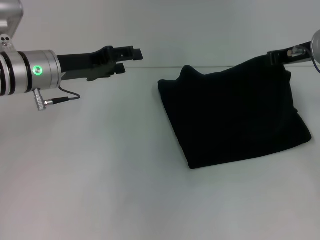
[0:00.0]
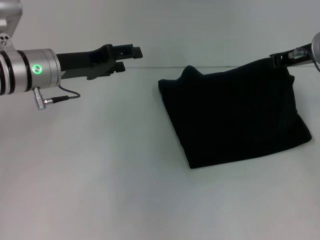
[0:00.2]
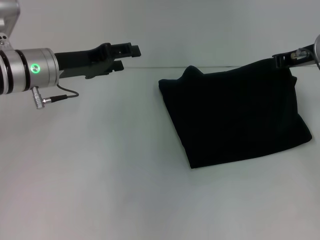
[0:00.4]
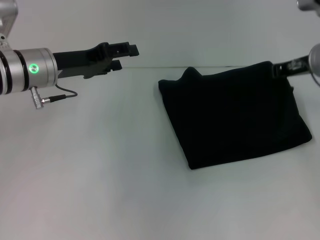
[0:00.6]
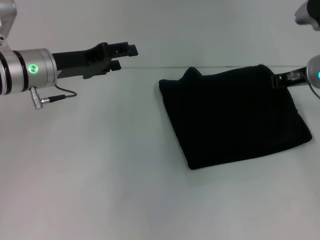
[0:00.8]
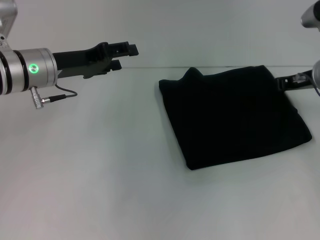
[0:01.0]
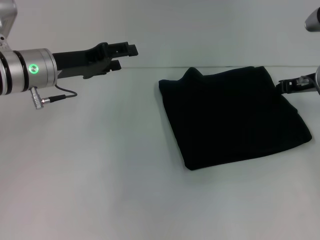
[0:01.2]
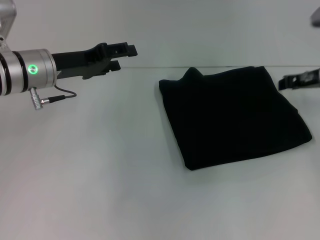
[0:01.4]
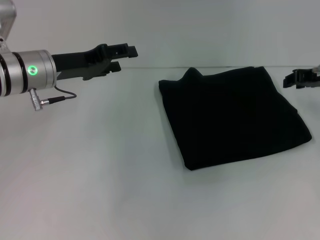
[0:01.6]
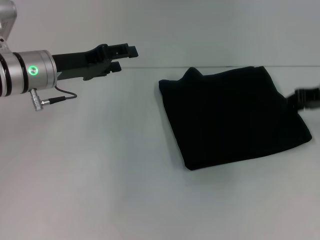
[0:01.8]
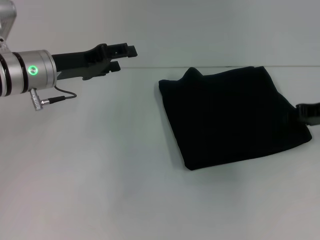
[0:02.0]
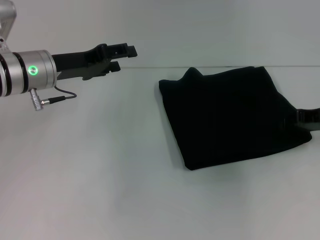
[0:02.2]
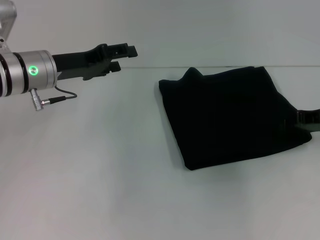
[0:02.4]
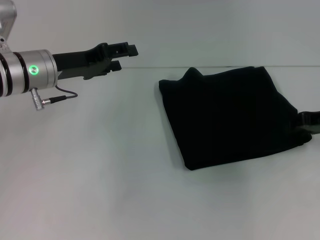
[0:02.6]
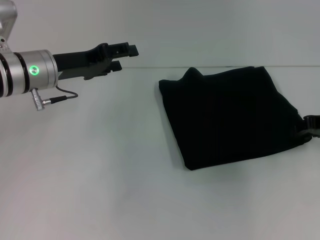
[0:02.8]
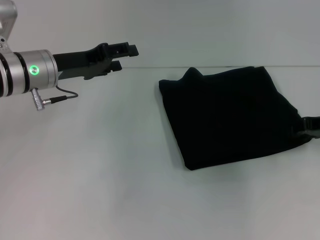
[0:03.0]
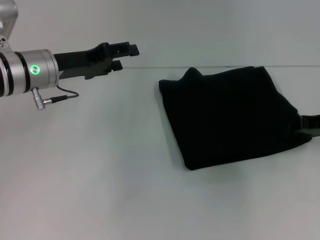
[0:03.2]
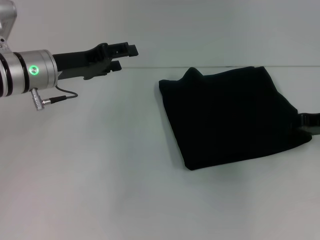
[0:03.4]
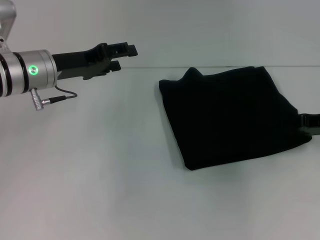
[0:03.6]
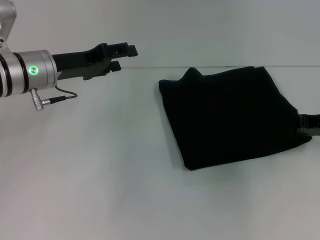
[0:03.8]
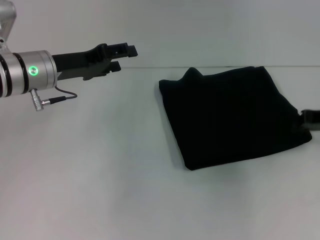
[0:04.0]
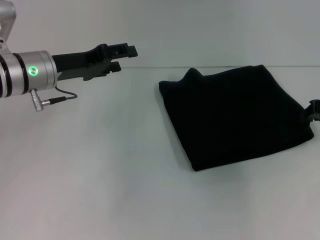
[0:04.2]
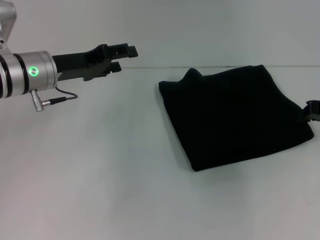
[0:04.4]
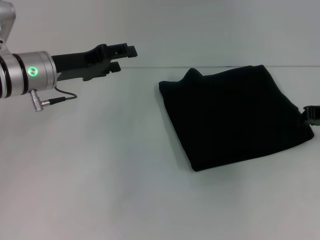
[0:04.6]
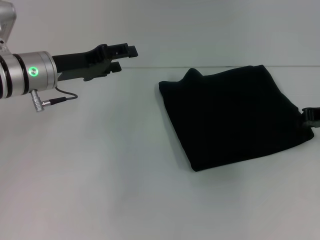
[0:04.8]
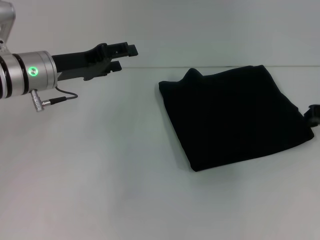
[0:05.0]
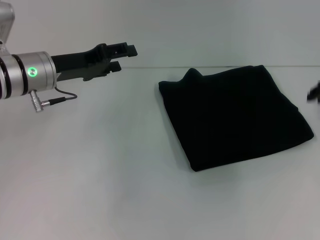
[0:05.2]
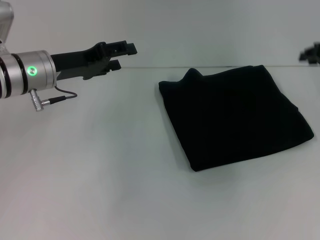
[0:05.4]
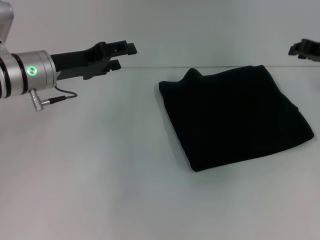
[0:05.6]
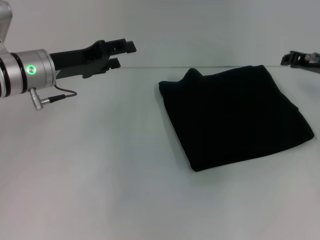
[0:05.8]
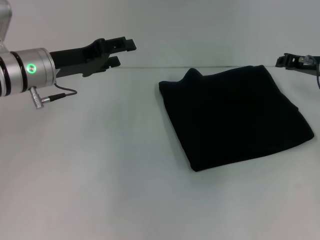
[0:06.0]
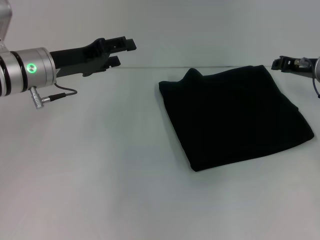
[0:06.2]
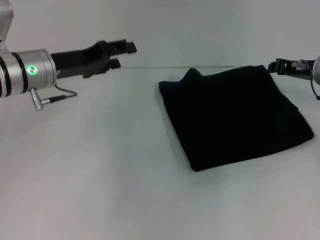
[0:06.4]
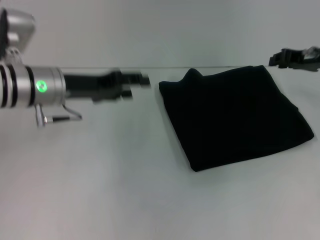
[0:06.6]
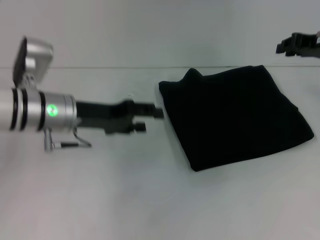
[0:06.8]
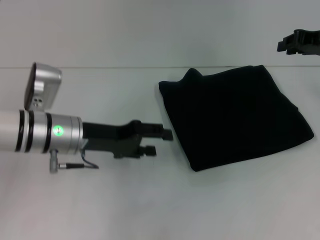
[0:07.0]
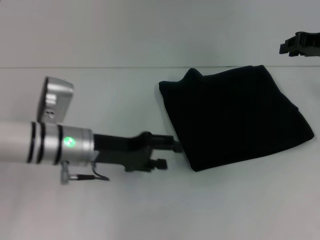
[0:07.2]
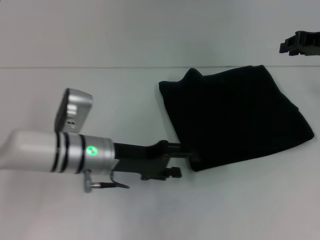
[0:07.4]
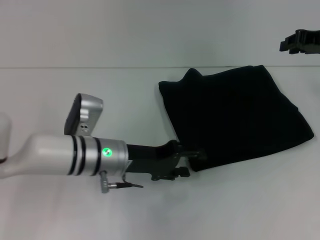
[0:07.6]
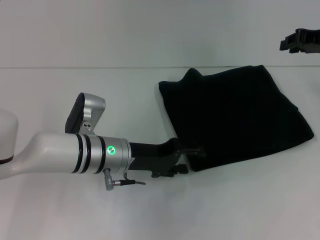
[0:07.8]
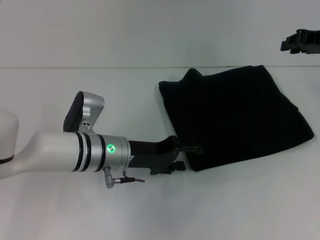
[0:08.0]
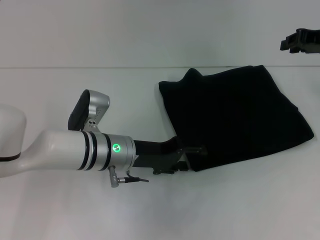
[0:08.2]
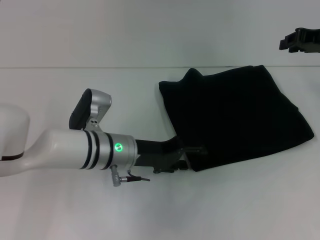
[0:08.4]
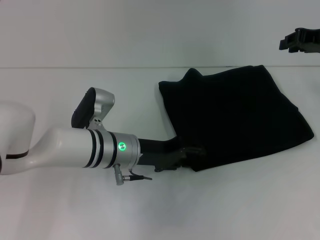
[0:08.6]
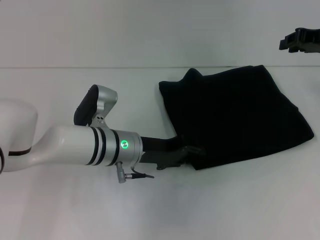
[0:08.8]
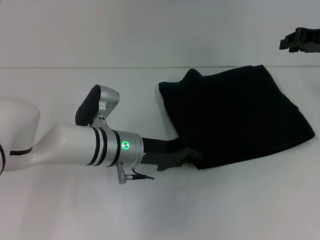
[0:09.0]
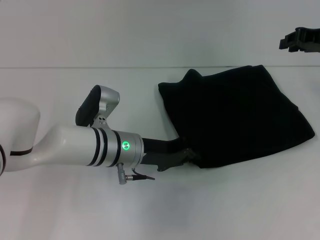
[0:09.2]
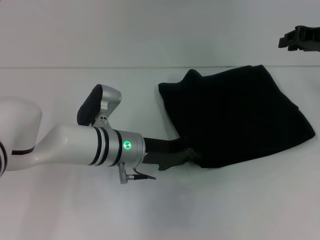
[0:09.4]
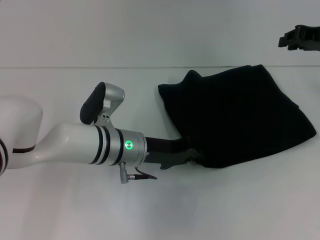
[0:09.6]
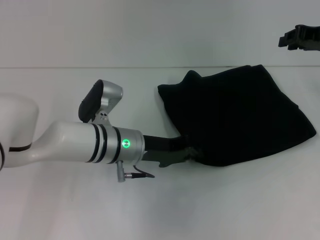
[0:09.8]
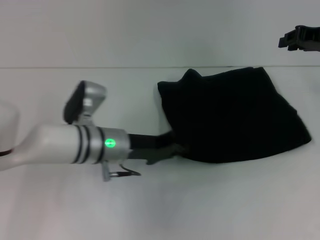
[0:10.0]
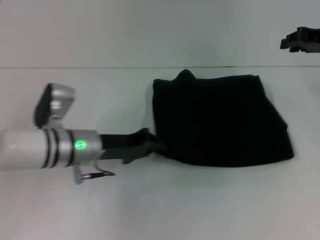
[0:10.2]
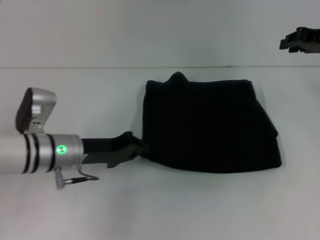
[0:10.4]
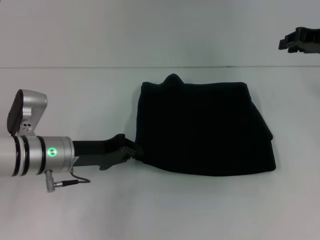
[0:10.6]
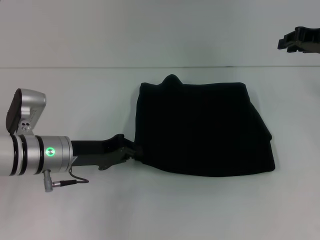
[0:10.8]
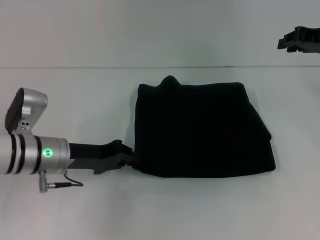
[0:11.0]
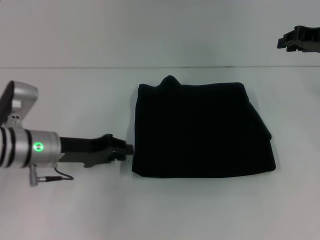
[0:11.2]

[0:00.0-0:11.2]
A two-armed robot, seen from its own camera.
0.0 to 1.6 s: The right gripper shifts by roughly 5 cm.
1.6 to 3.2 s: The right gripper ends up about 5 cm from where it was.
3.2 to 4.8 s: The right gripper closes.
4.8 to 6.4 s: The right gripper heads forward, covering roughly 5 cm.
6.4 to 8.0 s: The left gripper goes approximately 15 cm to the right, downward and backward. The right gripper shifts about 5 cm upward.
8.0 to 9.6 s: The left gripper closes its fingers.
9.6 to 11.2 s: The left gripper travels to the left by roughly 15 cm.

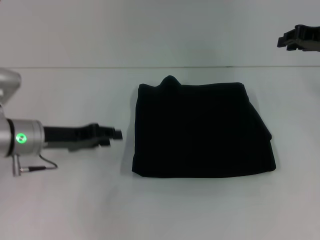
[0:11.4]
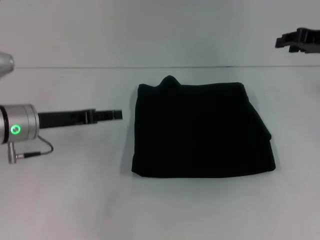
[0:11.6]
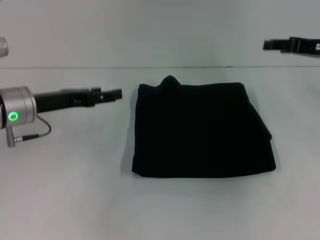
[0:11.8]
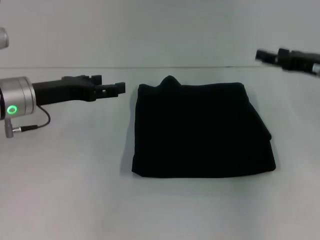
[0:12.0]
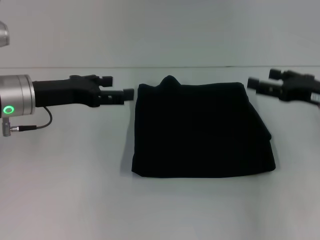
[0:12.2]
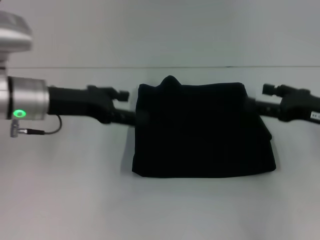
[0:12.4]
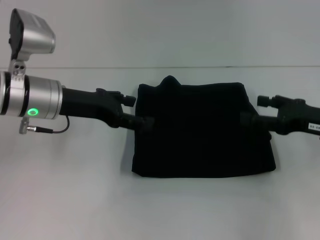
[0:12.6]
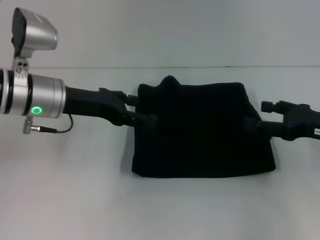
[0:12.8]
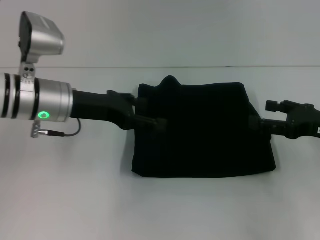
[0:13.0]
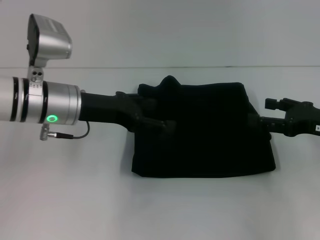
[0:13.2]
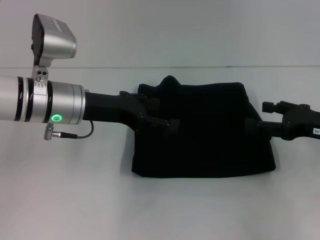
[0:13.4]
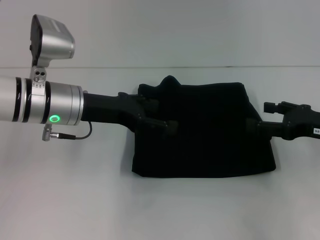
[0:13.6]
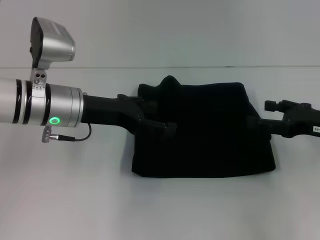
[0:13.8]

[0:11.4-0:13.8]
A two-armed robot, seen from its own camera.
11.4 to 12.6 s: The right gripper travels backward and downward by roughly 15 cm, and opens its fingers; the left gripper travels upward by some 5 cm, and opens.
12.6 to 13.8 s: There are only small adjustments of the grippers.

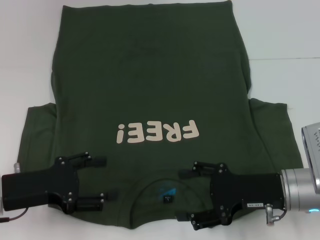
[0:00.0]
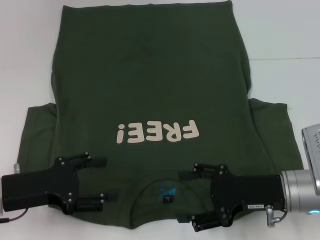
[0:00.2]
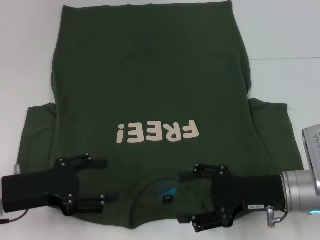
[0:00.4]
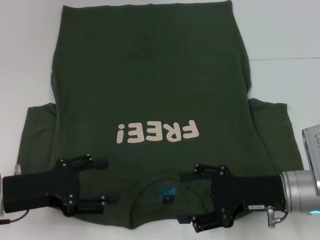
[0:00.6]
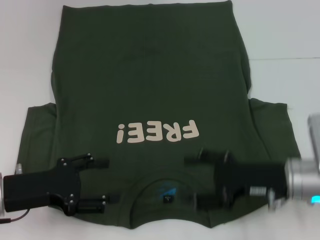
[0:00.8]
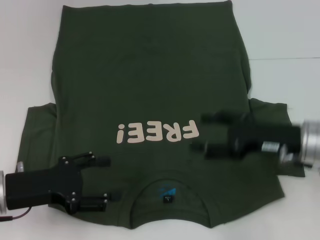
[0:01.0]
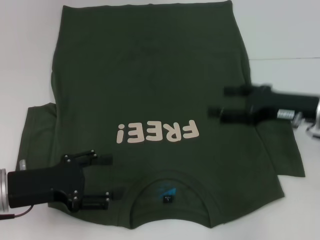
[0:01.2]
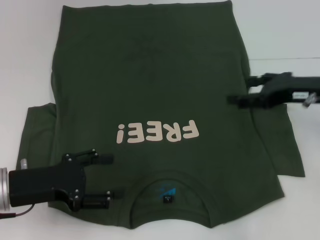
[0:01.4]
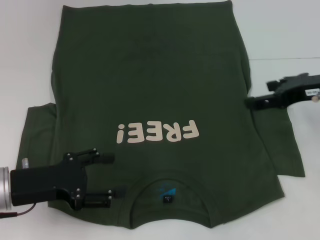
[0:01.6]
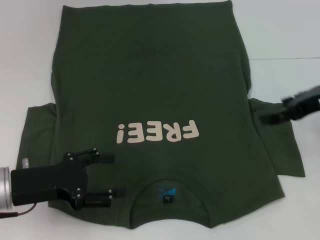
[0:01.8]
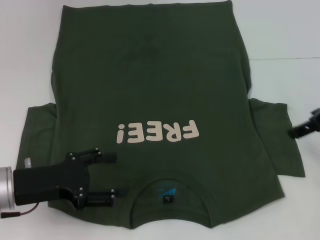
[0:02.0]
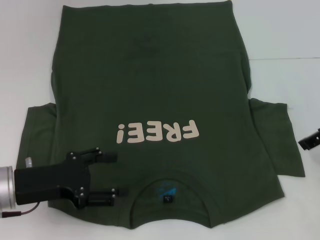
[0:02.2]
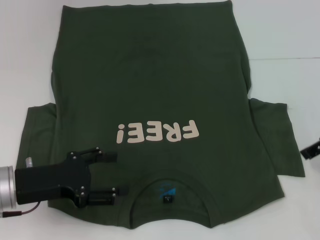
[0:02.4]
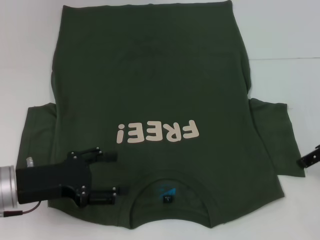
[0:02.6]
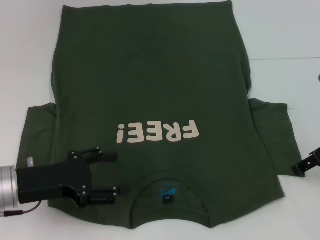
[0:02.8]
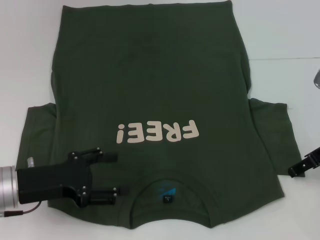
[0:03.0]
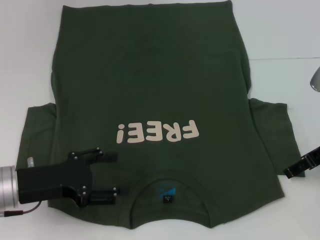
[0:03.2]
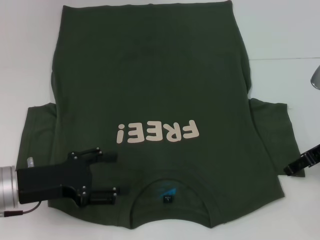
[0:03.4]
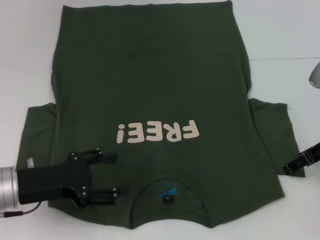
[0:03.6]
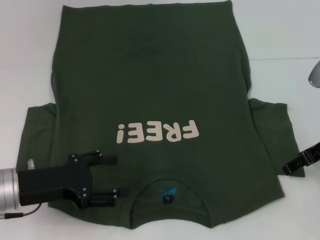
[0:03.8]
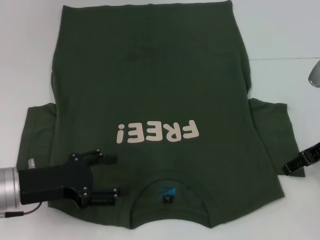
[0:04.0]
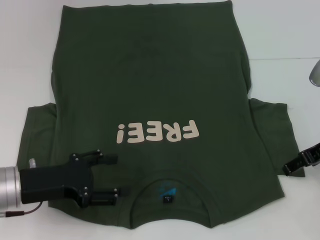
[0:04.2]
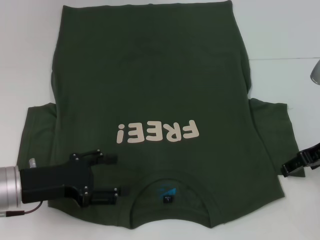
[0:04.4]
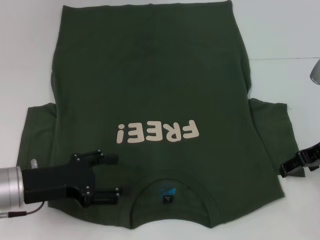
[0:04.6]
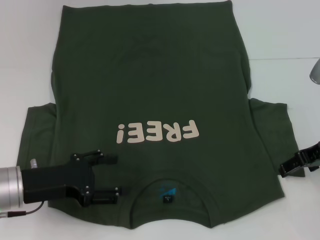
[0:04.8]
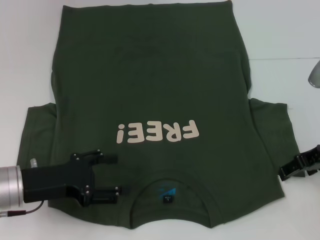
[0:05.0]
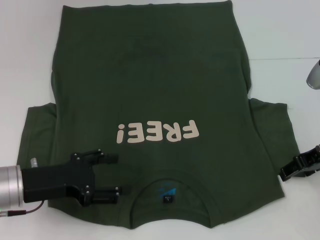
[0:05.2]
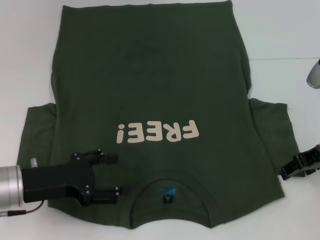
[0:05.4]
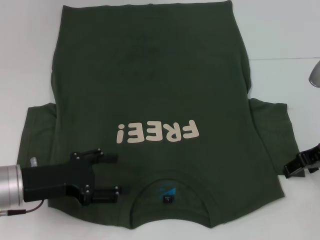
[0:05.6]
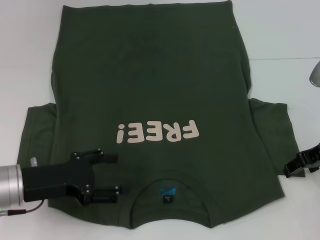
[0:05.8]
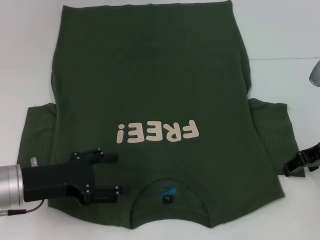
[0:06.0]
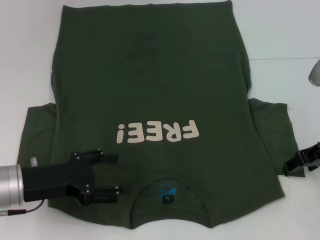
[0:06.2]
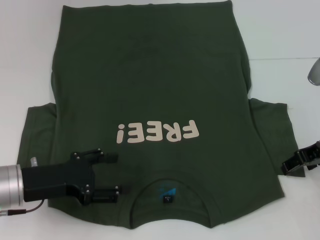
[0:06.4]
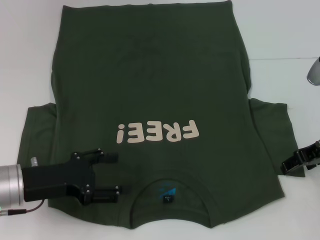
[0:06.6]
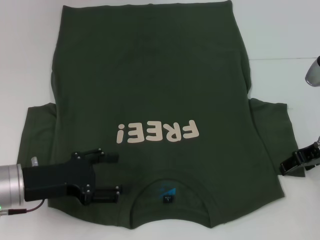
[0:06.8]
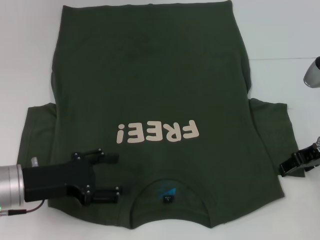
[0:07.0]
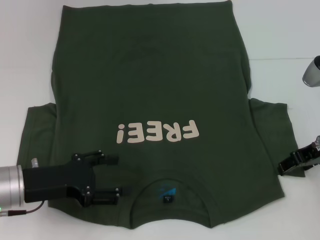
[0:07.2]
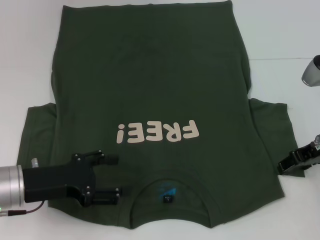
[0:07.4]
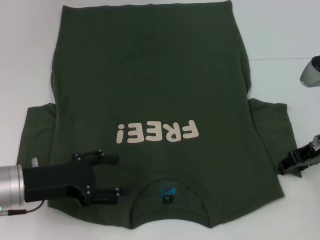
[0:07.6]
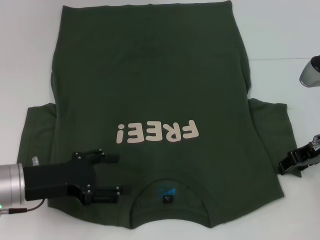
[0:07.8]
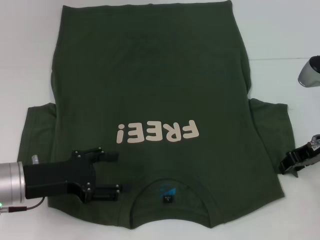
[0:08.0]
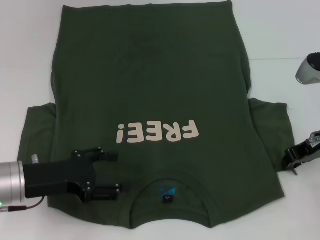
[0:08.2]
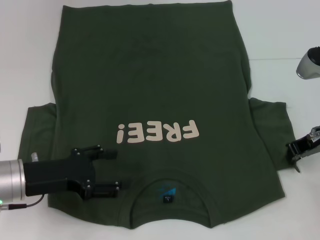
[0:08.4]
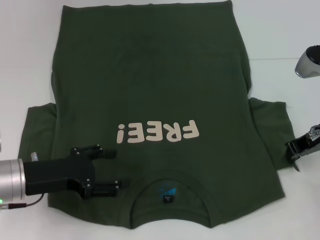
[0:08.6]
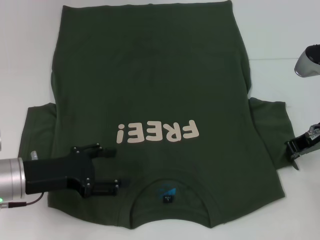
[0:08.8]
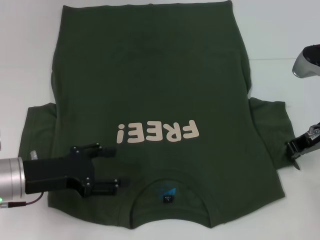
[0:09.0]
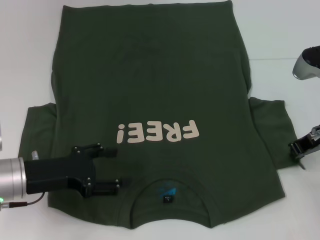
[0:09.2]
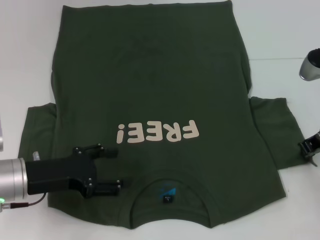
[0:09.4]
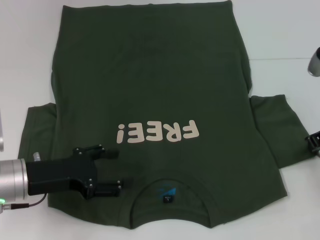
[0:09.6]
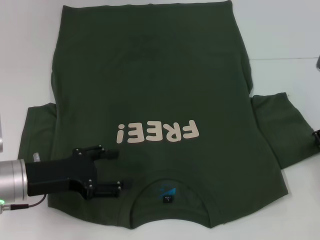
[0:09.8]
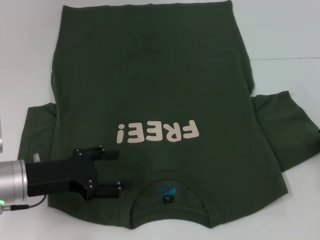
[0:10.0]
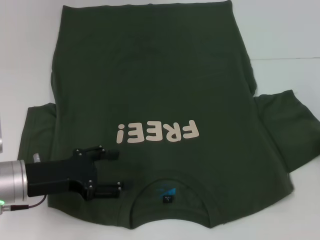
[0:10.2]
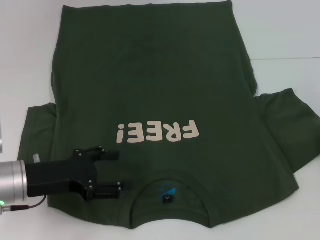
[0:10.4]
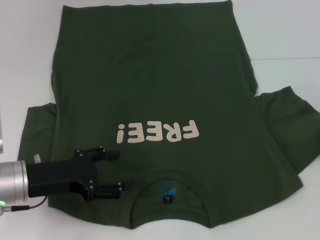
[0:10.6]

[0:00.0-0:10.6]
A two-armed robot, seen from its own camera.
0.0 to 1.6 s: The right gripper goes about 15 cm upward, forward and to the right.
3.0 to 4.6 s: The grippers stay close to where they were, moving slightly.
4.6 to 6.0 s: The two grippers keep their place.
6.0 to 7.6 s: Neither gripper changes place.
7.6 to 9.0 s: The right gripper closes up.
9.0 to 10.6 s: The right gripper is displaced to the right by approximately 5 cm.
